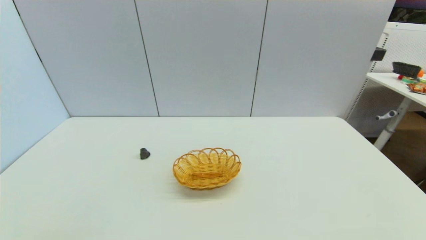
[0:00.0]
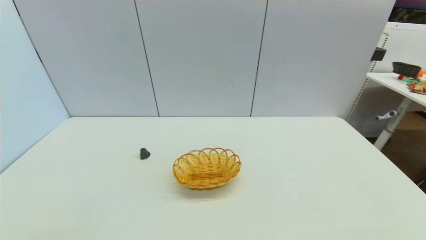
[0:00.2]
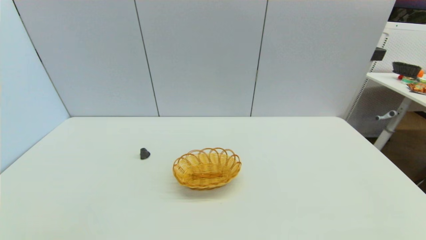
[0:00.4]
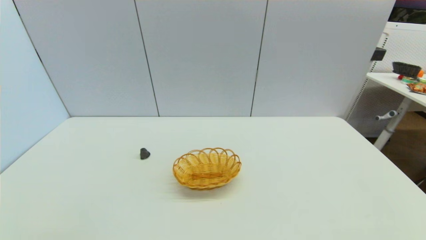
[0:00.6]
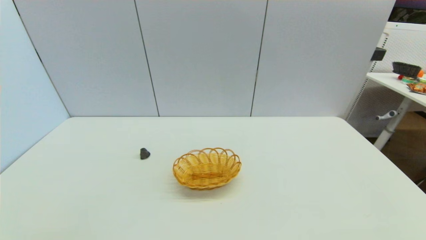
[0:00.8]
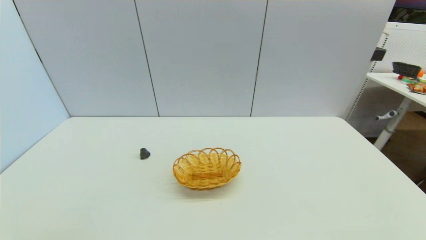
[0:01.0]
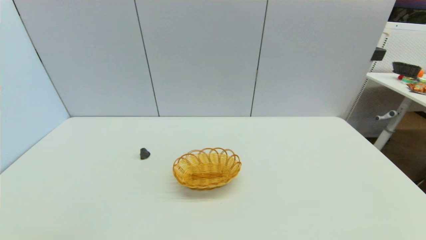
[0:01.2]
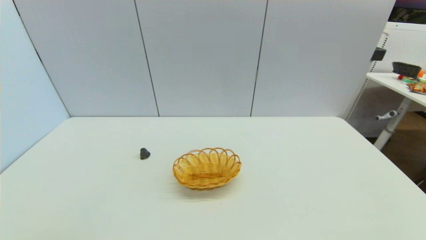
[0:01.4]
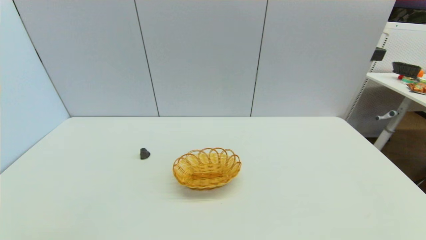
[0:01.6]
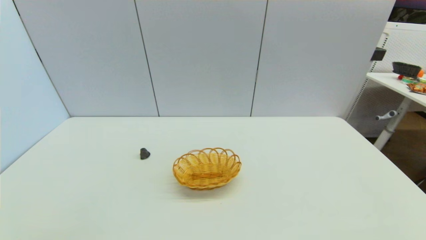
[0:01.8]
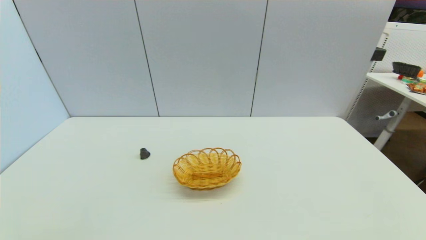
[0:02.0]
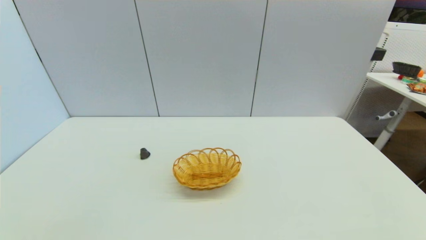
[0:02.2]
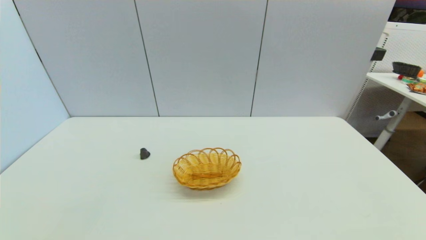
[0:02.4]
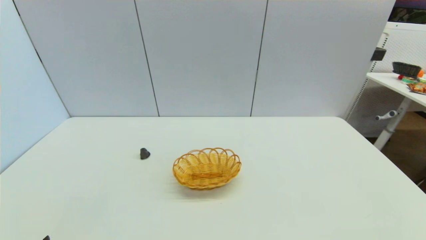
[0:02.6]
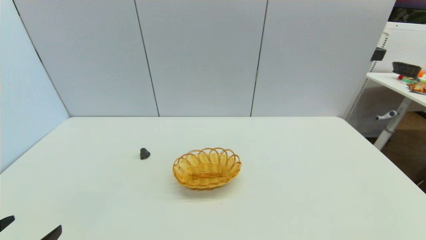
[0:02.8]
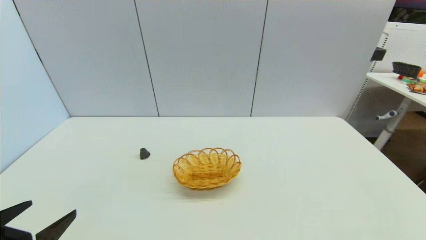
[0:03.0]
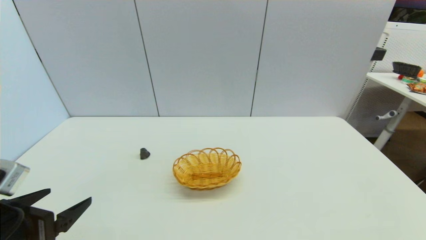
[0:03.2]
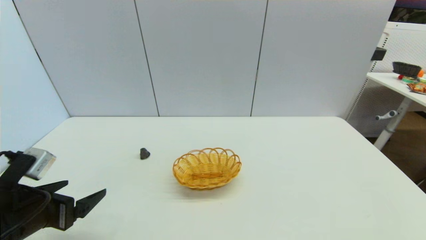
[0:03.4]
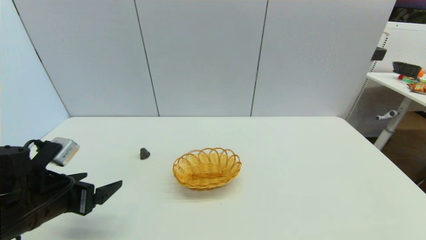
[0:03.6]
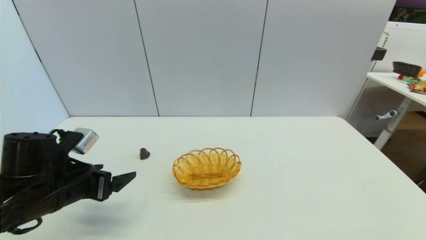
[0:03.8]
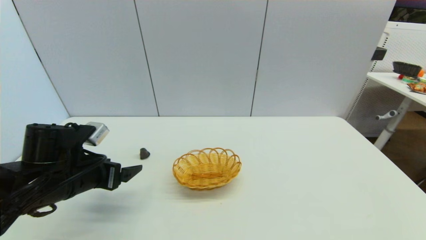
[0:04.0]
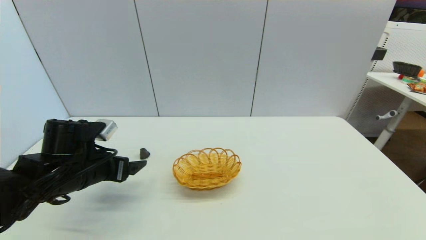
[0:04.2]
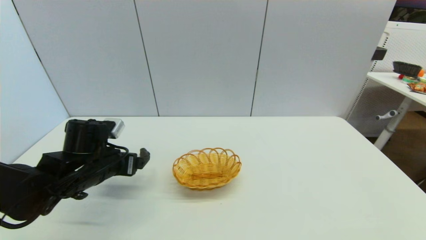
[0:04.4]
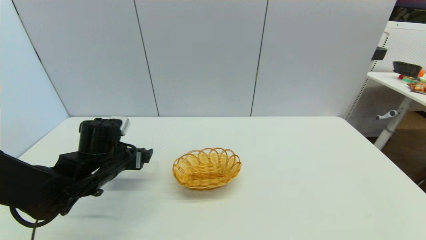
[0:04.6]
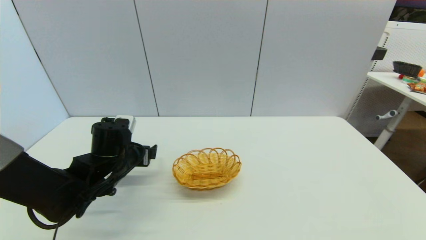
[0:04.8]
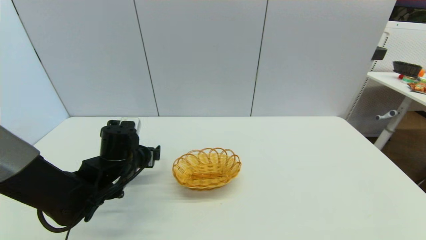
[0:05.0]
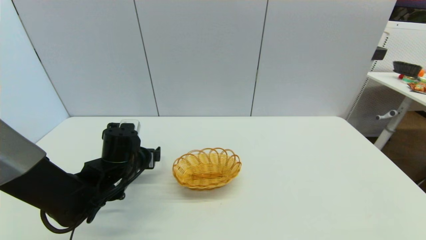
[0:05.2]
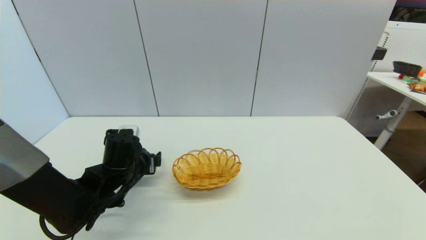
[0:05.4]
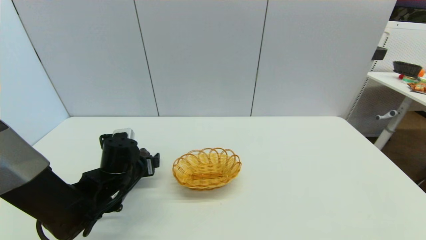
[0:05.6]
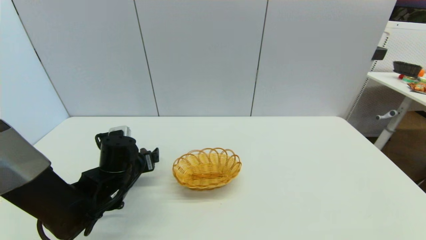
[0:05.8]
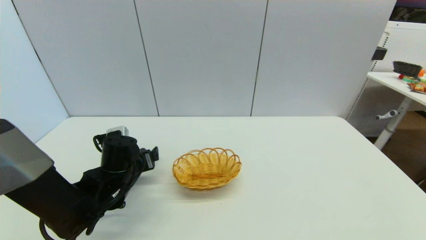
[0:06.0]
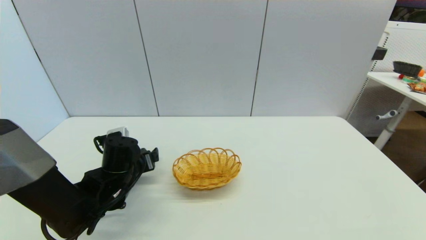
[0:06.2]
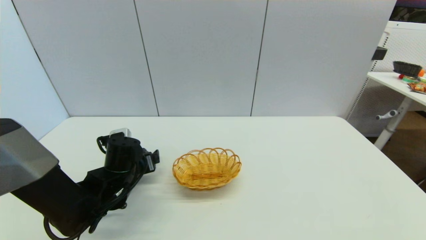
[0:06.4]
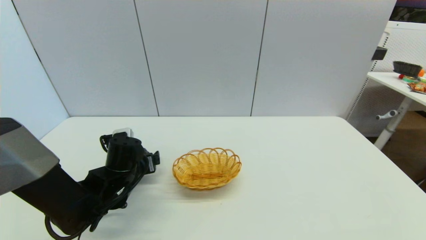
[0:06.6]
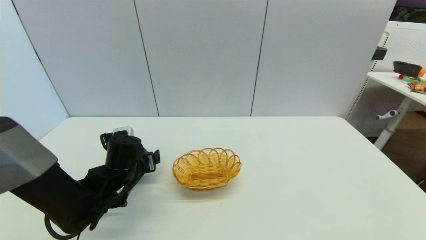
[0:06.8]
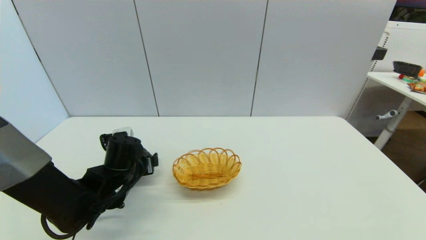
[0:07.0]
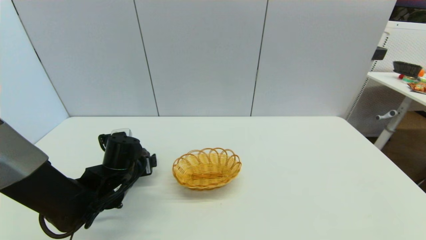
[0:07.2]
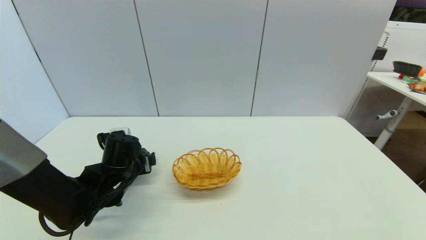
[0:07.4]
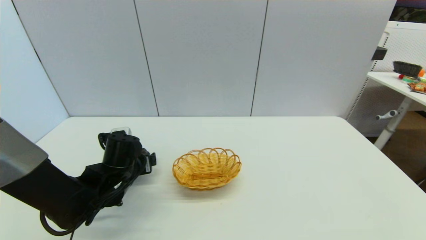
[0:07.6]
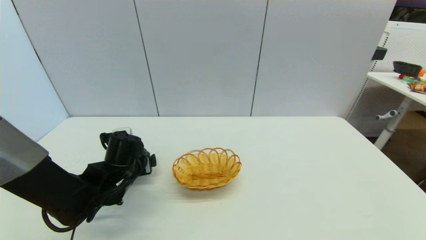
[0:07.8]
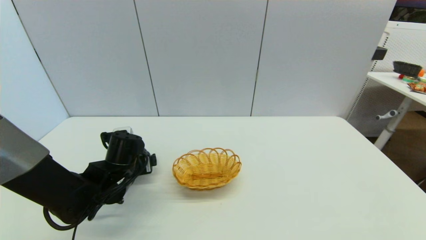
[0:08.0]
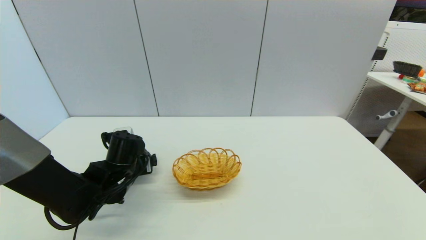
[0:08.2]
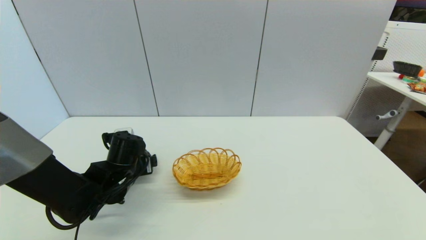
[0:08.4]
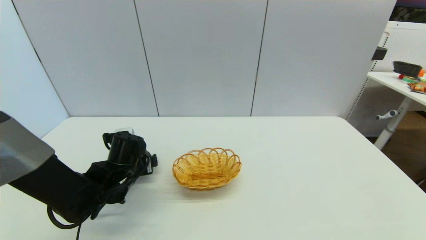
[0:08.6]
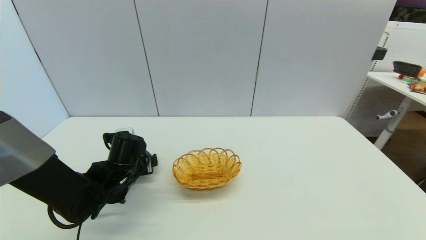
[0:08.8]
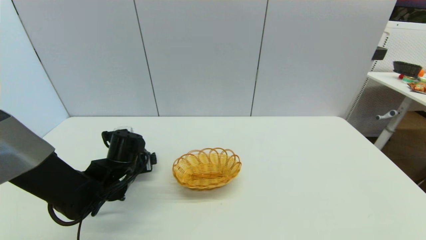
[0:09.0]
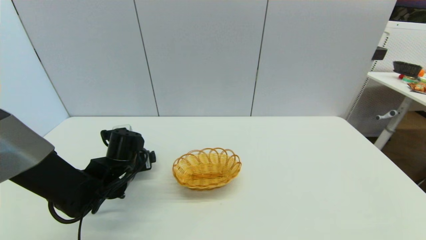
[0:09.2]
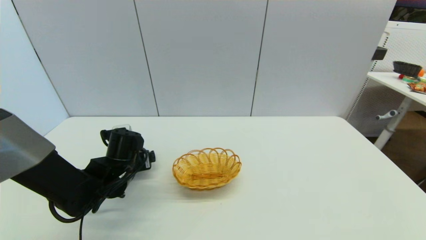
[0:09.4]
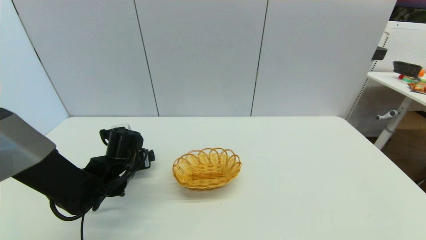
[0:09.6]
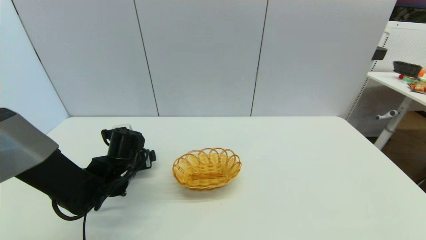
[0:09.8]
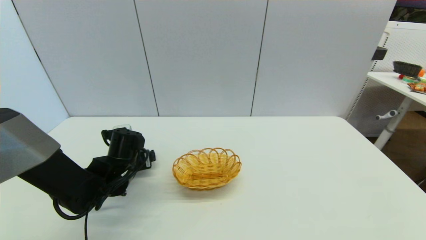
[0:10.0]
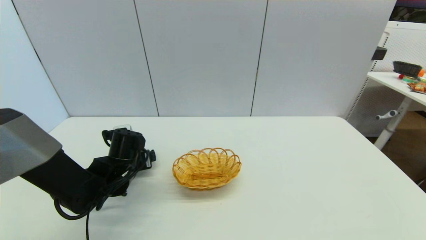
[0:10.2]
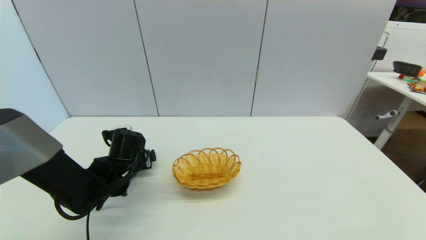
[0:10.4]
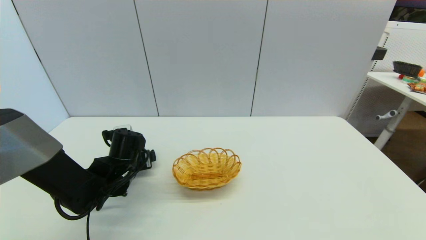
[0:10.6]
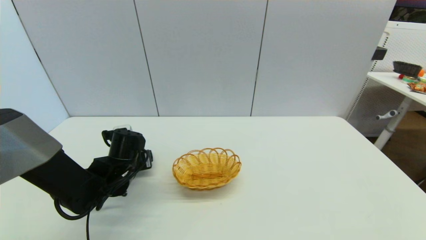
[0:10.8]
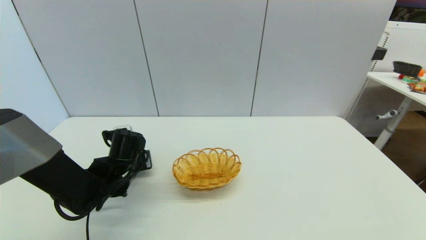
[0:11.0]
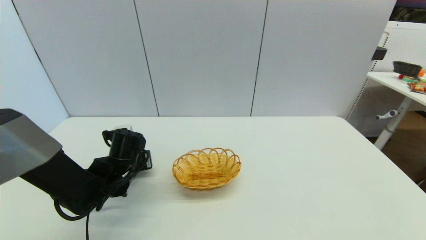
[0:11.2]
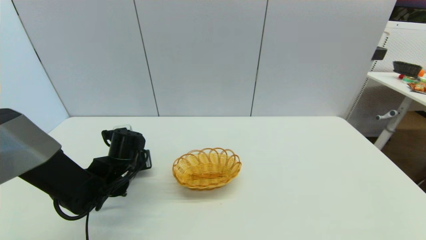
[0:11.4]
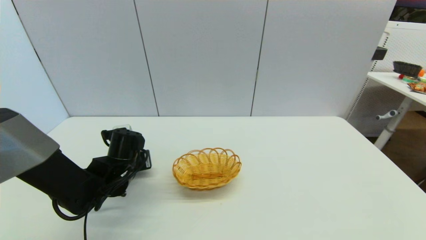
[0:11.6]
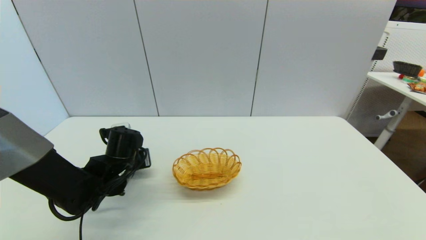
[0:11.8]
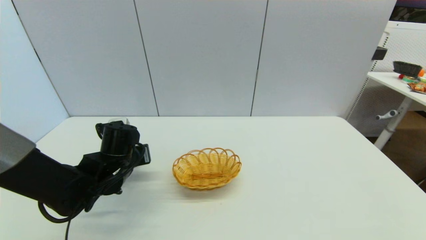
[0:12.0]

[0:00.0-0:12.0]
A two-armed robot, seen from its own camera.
Step, 0:02.4 to 0:12.0: Grasp the coffee capsule with left gripper.
0:00.0 to 0:01.6: Both grippers stay about where they are.
0:01.6 to 0:03.0: The left gripper moves forward and upward, approximately 10 cm.
0:03.0 to 0:04.4: The left gripper is displaced forward by some 20 cm.
0:04.4 to 0:06.0: The left gripper changes place by some 5 cm.
0:06.0 to 0:07.6: The grippers stay close to where they were, moving slightly.
0:07.6 to 0:09.0: Neither gripper changes place.
0:09.0 to 0:10.4: Both grippers stay about where they are.
0:10.4 to 0:12.0: The left gripper closes.

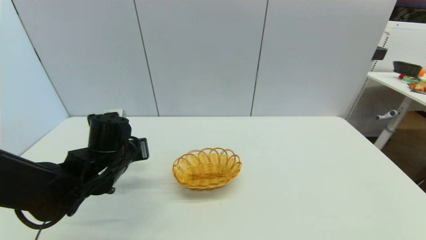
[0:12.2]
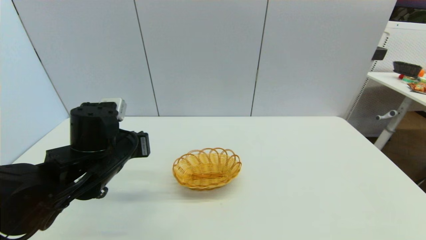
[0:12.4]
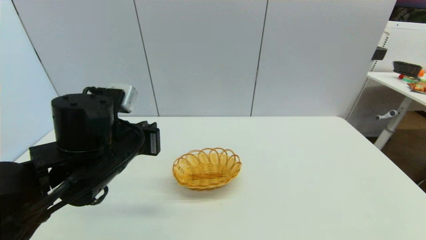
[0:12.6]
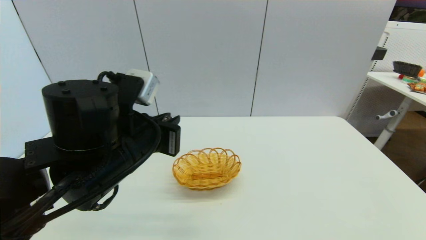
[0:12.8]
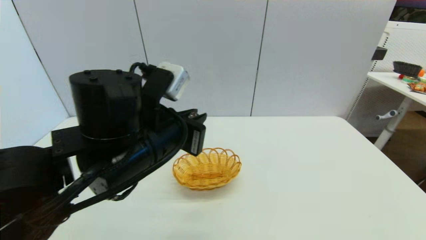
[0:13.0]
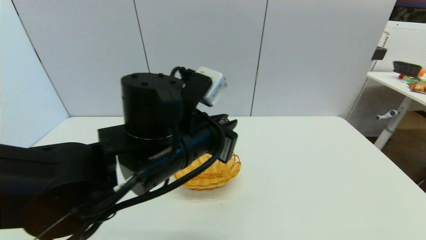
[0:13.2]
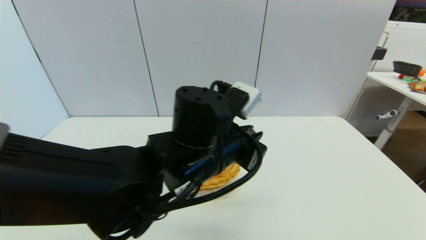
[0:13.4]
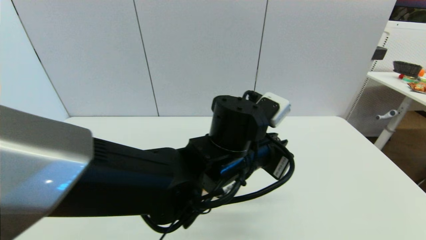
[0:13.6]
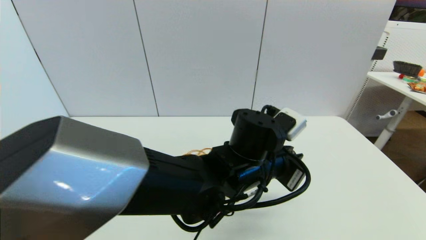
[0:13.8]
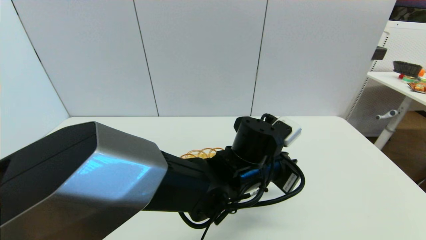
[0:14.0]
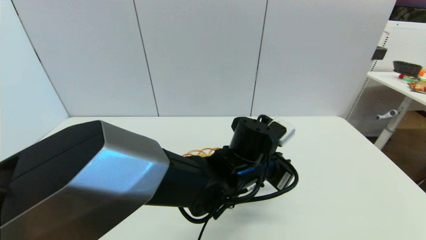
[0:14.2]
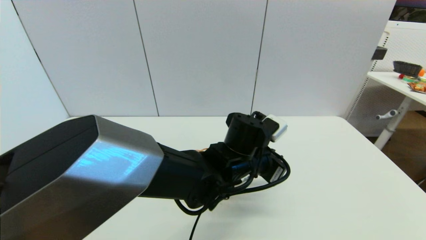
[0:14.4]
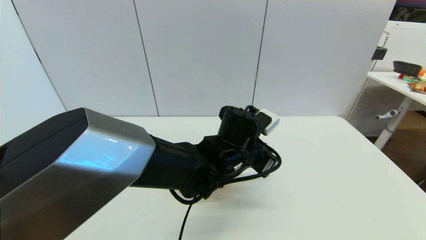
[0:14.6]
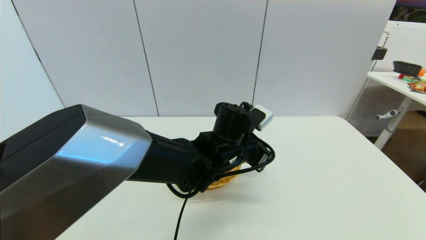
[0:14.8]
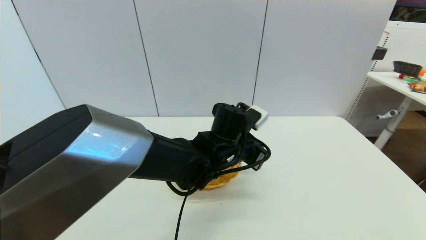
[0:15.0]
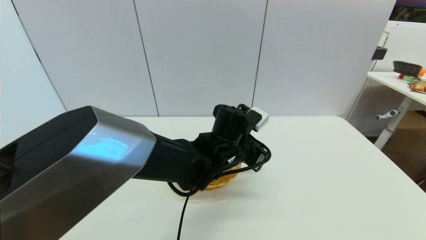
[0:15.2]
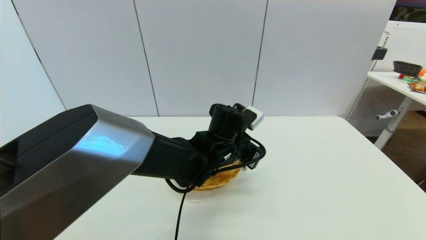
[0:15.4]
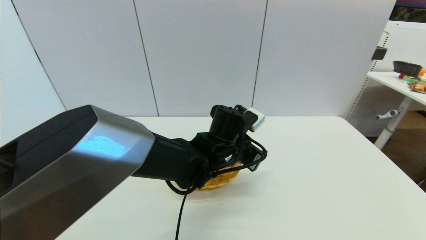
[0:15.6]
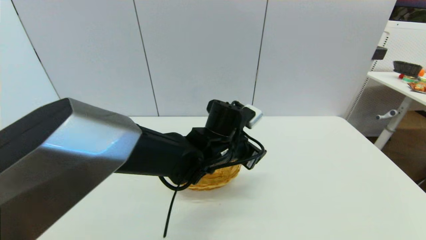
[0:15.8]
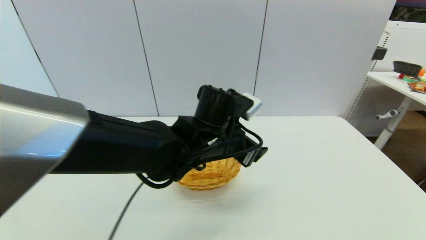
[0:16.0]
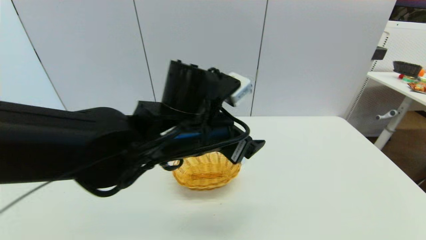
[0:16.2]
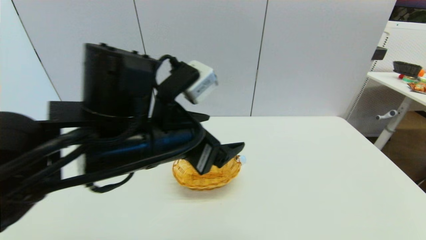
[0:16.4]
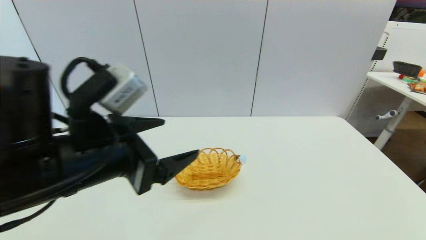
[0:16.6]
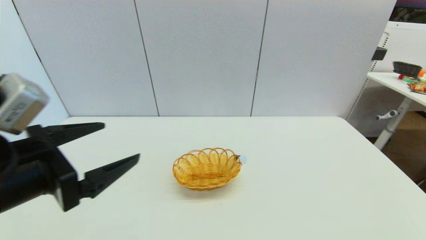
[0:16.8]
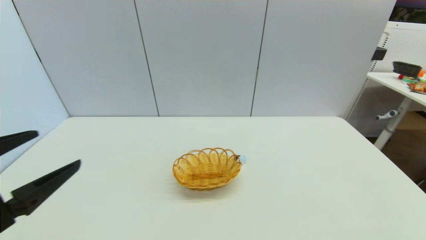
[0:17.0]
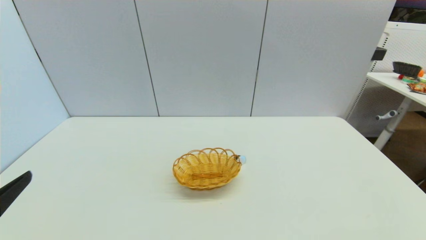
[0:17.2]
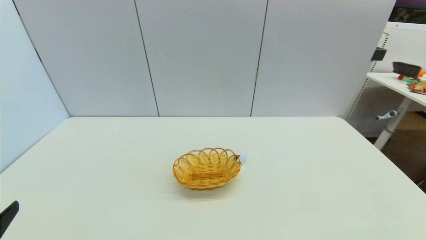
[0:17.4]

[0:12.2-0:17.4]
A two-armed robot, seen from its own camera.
Step, 0:12.2 to 0:15.4: Place the coffee capsule on the table with left gripper.
0:12.2 to 0:14.0: The left gripper travels to the right by approximately 25 cm.
0:14.0 to 0:15.6: The left gripper shifts about 5 cm forward, and opens.
0:15.6 to 0:17.4: The left gripper is displaced to the left and backward by approximately 40 cm, and opens.
